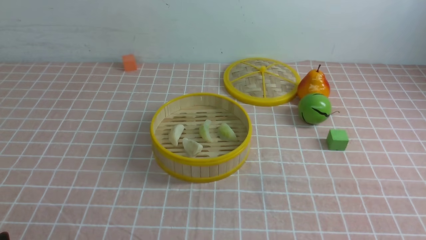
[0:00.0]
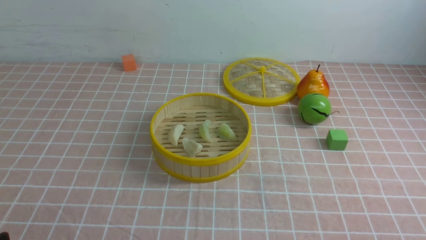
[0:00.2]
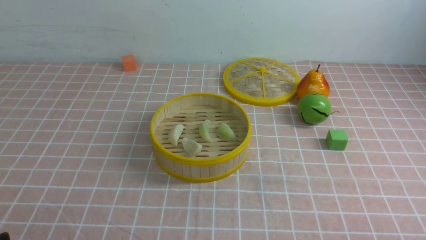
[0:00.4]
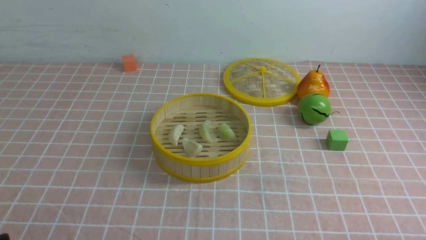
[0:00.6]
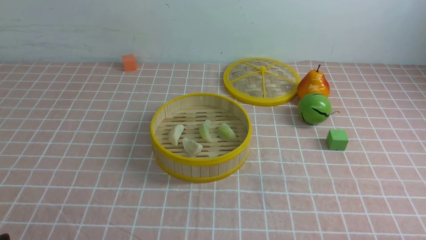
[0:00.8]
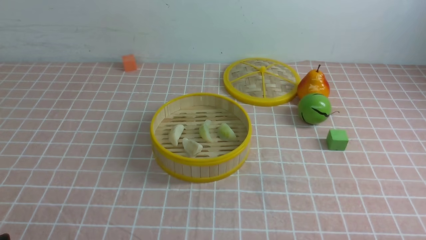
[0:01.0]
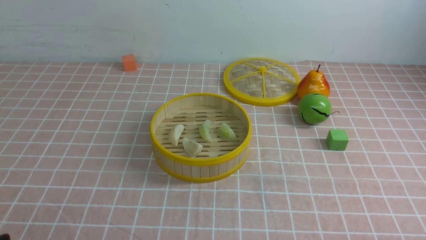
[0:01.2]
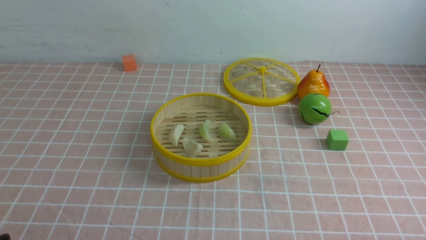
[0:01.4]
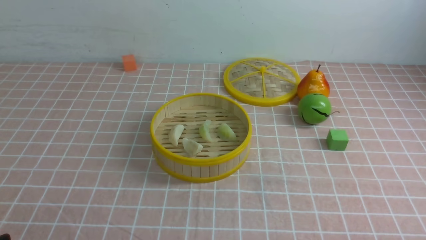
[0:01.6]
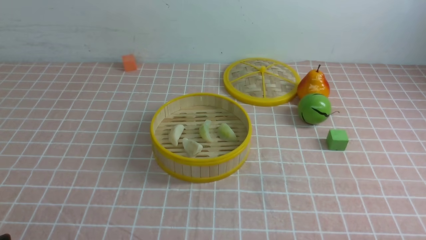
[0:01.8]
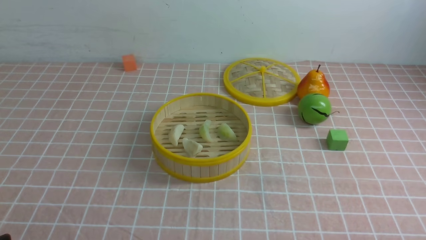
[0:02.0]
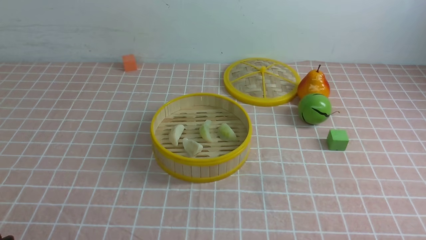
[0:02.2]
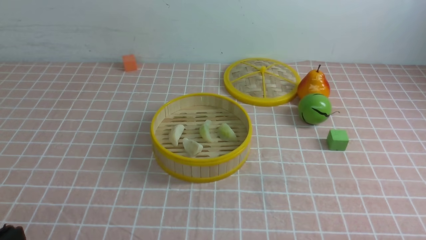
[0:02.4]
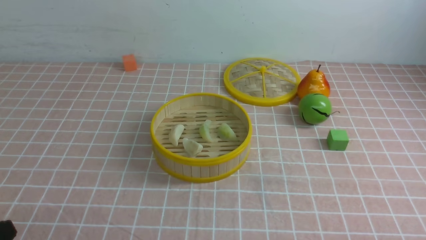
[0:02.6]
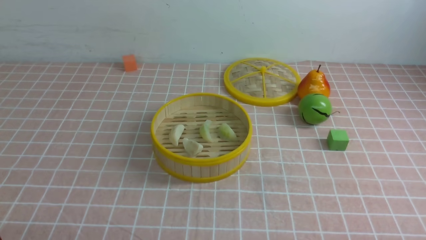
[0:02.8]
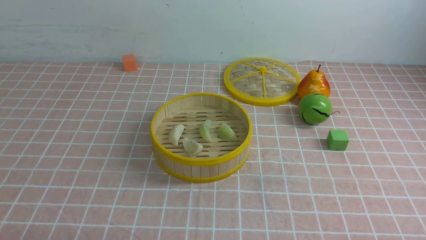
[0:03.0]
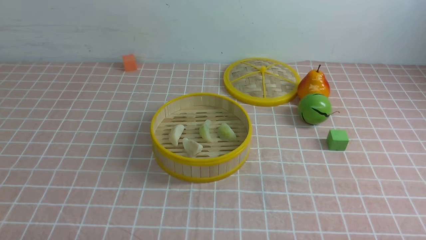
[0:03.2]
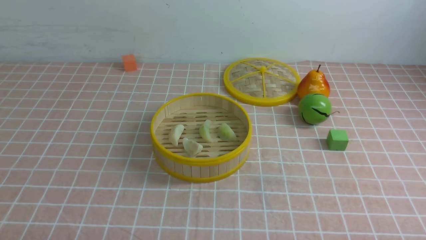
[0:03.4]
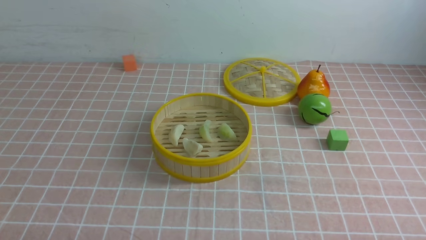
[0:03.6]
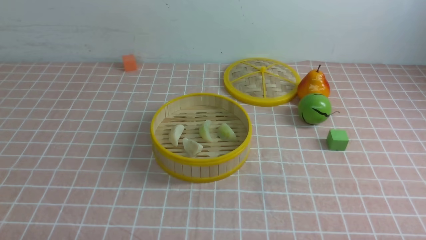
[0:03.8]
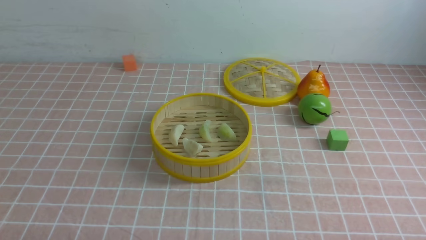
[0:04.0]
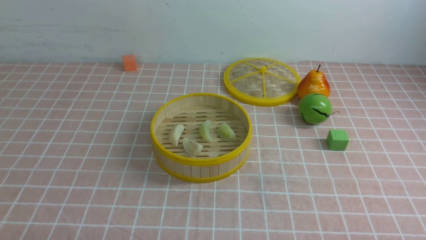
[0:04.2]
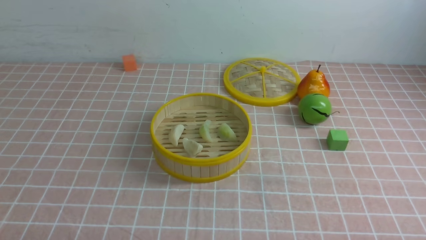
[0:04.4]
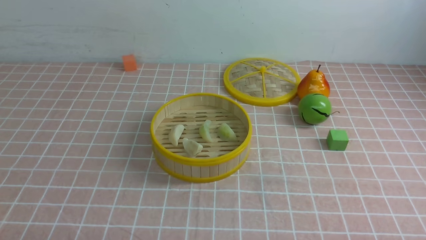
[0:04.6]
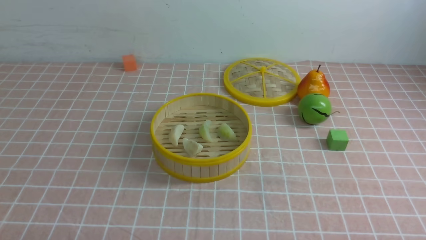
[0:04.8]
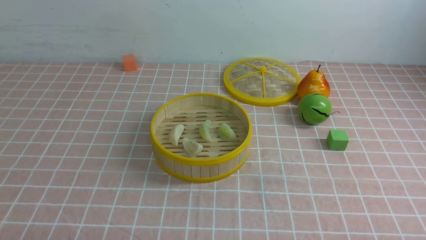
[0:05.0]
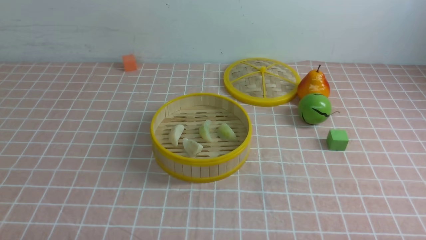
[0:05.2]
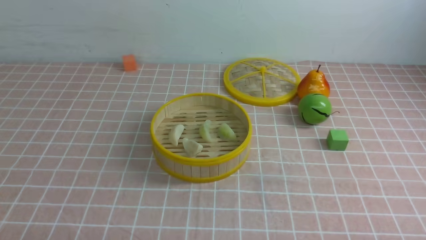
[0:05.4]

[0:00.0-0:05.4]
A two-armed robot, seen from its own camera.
Task of the whole recording: put the dumplings into the steamer on the table with the pink tablecloth.
0:04.0 to 0:05.4: Both grippers stay about where they are.
